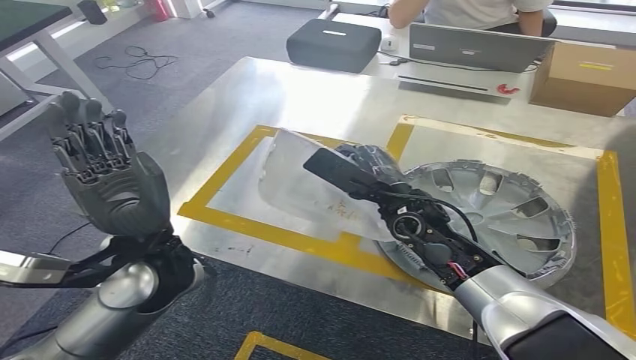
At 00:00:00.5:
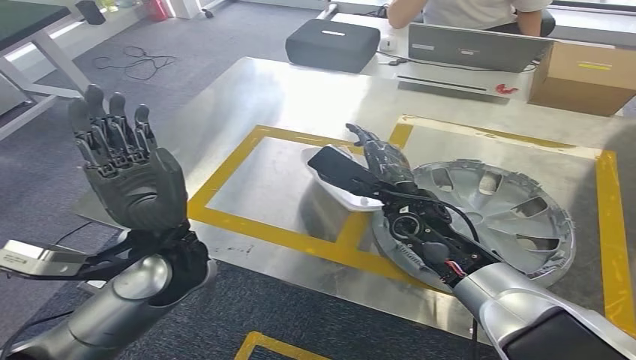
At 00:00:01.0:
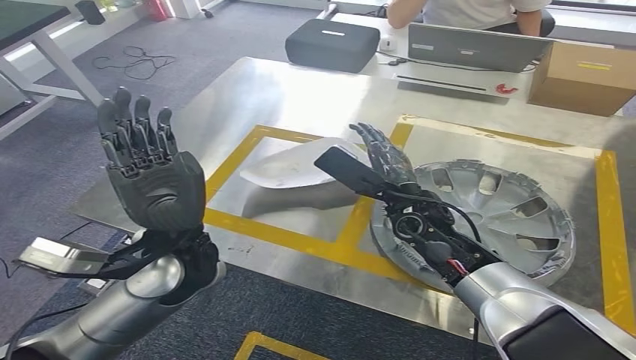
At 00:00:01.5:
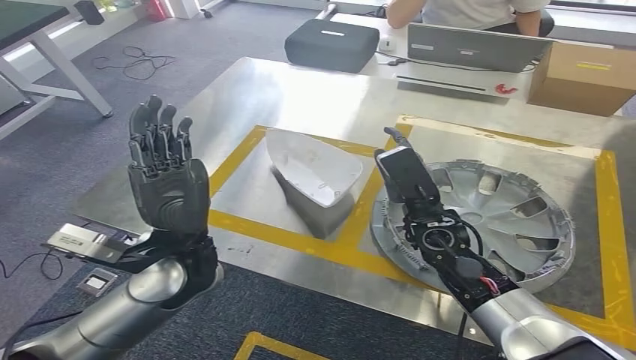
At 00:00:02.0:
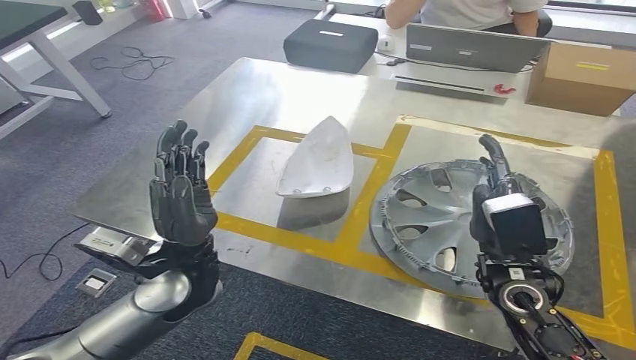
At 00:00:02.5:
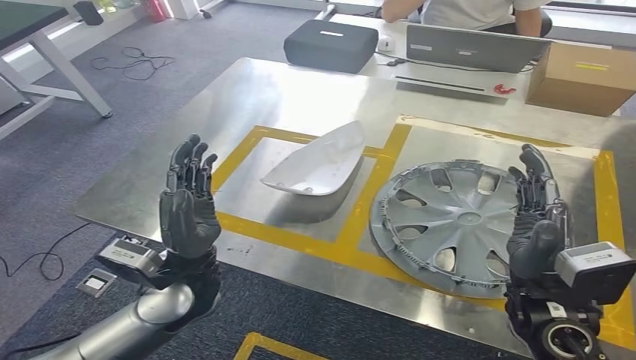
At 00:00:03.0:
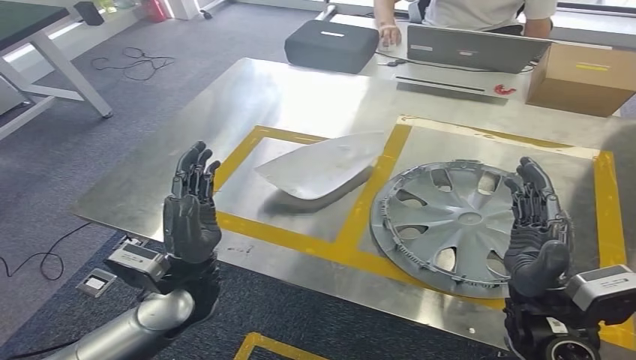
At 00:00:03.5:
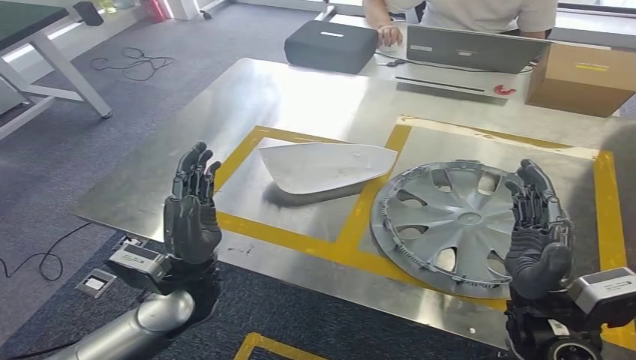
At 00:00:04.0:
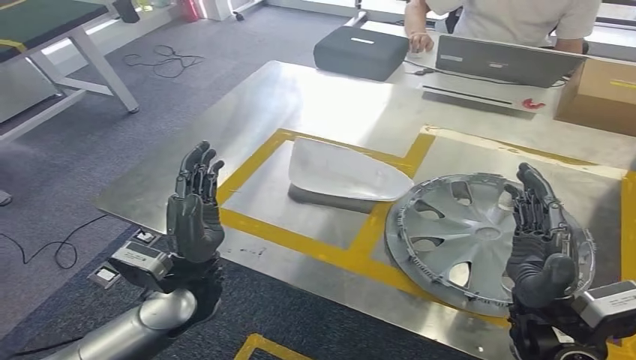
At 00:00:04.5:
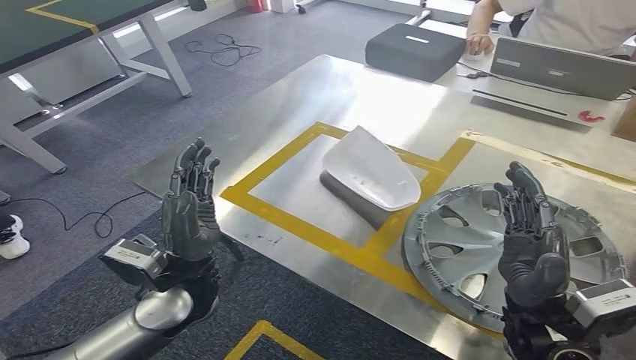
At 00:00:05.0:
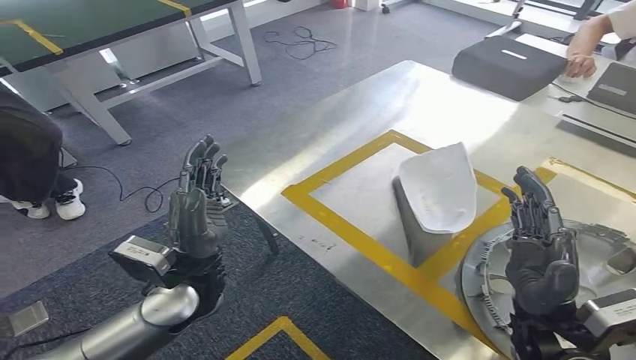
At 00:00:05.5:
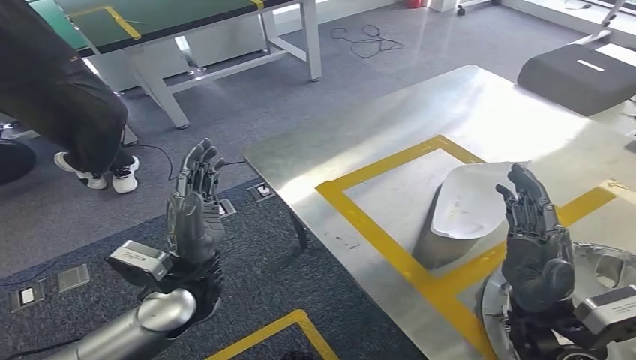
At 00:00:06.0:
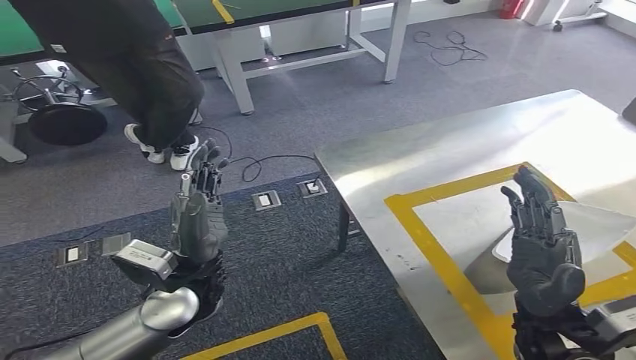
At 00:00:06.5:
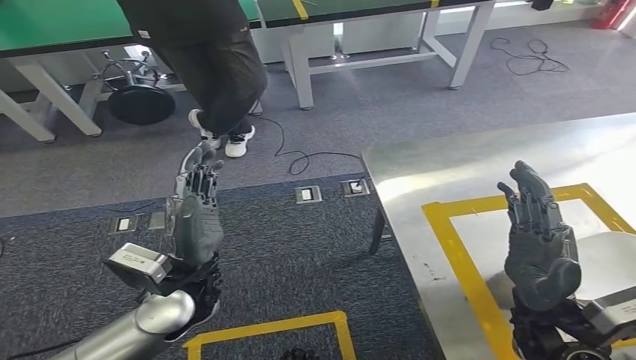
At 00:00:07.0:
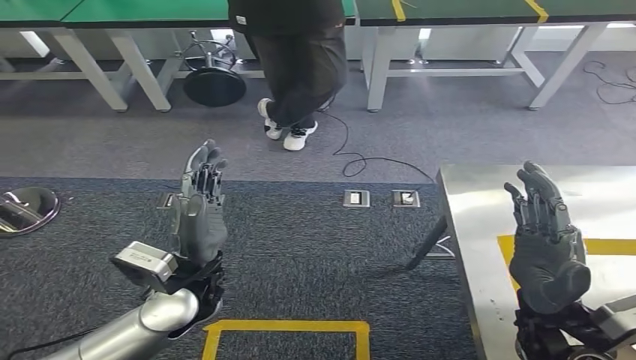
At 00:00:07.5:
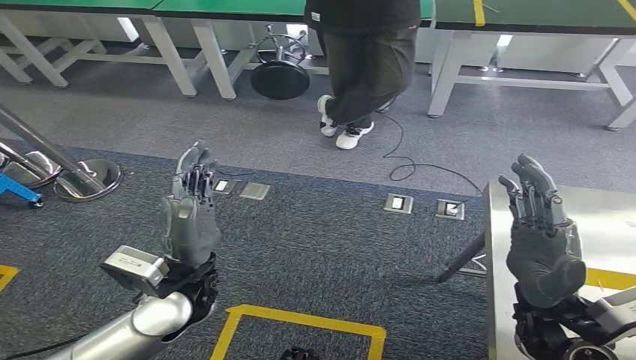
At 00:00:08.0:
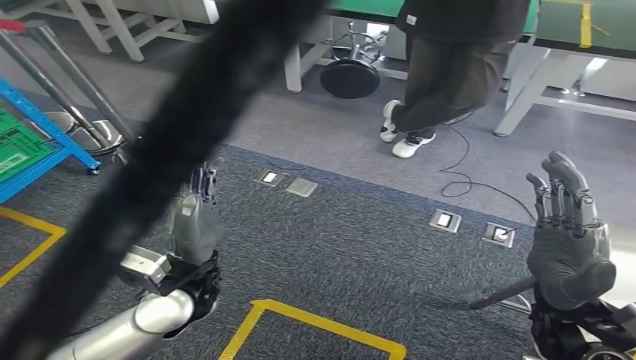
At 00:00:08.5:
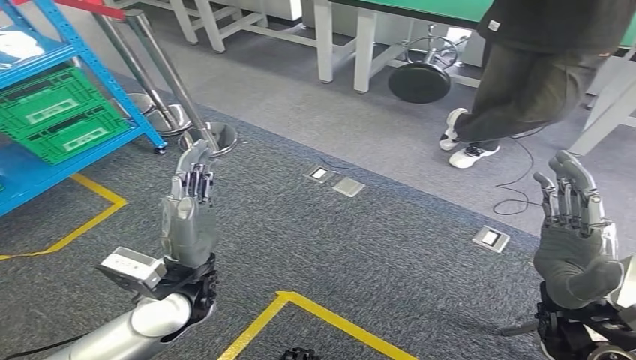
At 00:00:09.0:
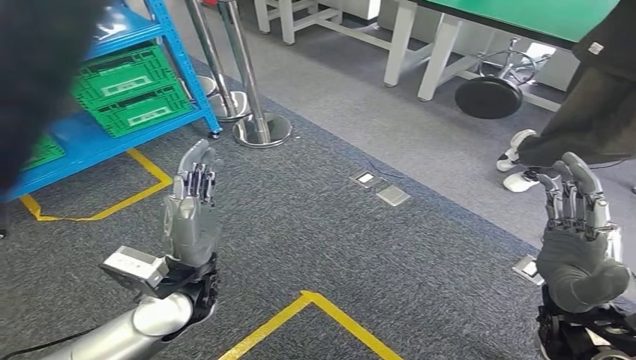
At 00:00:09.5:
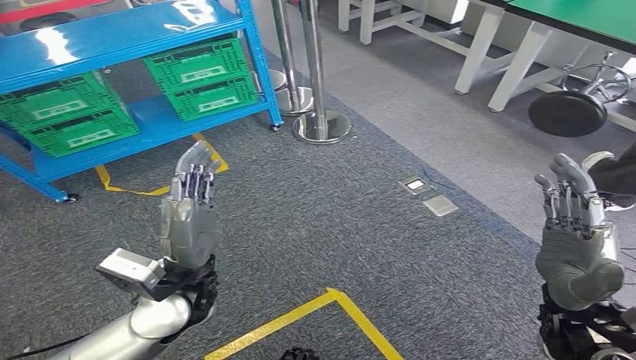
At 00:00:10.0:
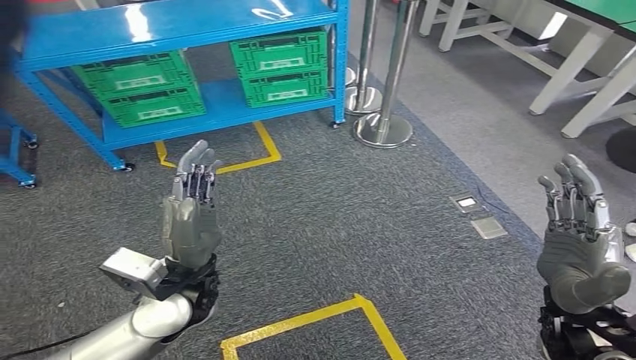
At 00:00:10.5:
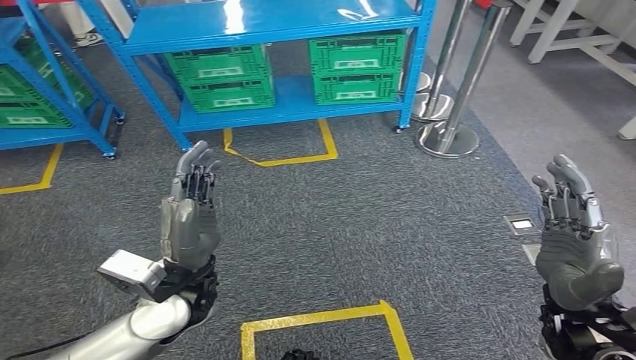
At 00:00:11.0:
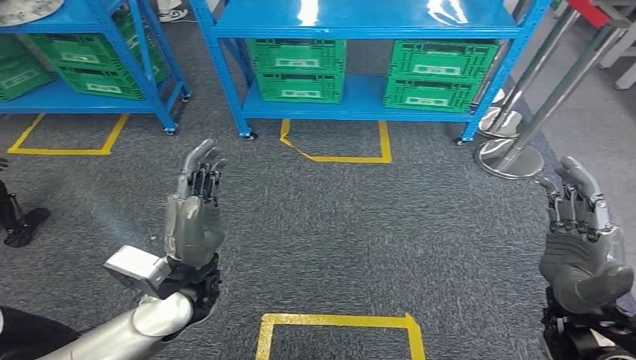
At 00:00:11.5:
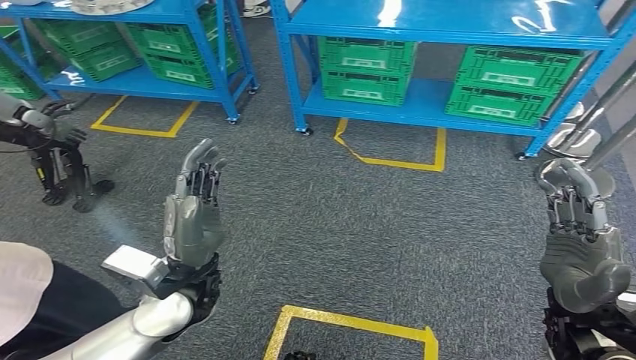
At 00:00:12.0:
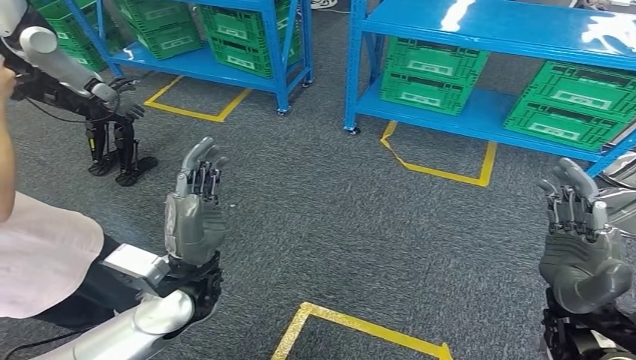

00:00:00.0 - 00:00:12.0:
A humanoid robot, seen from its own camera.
Step, 00:00:00.0 - 00:00:02.0: Insert the small component into the corresponding slot on the workbench.

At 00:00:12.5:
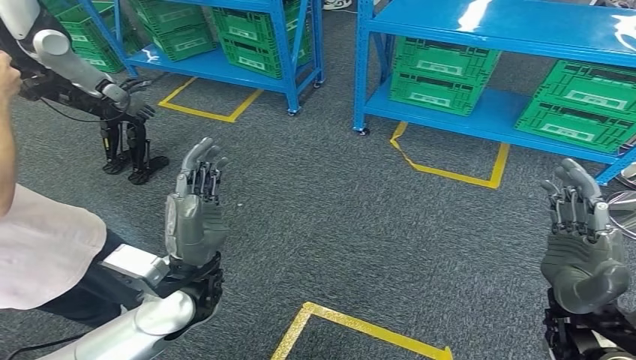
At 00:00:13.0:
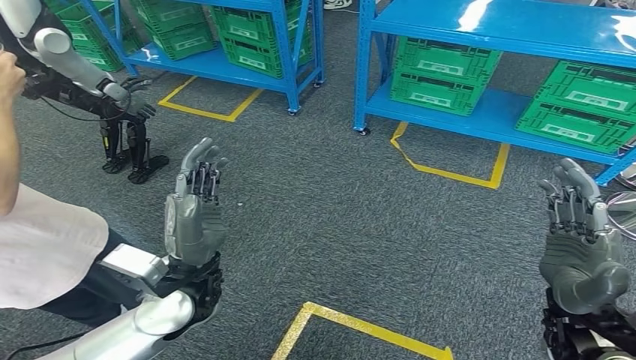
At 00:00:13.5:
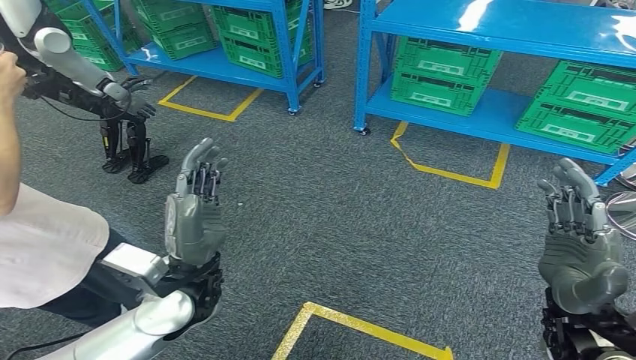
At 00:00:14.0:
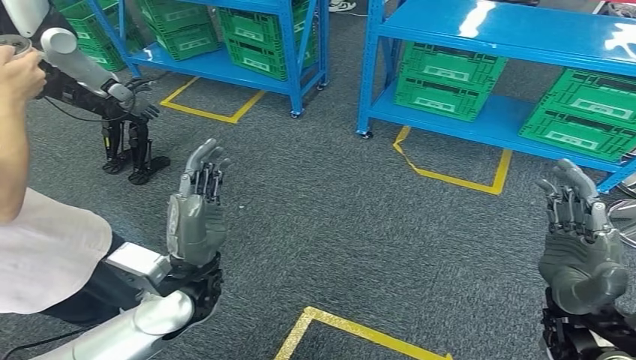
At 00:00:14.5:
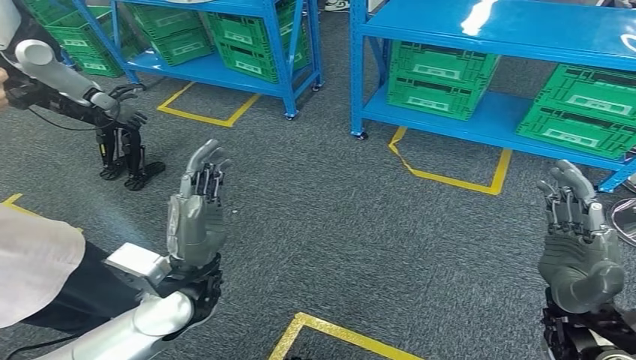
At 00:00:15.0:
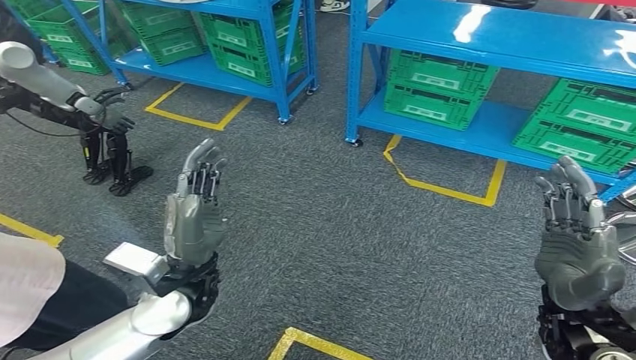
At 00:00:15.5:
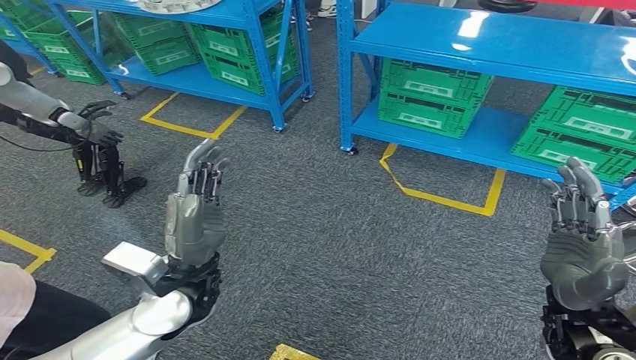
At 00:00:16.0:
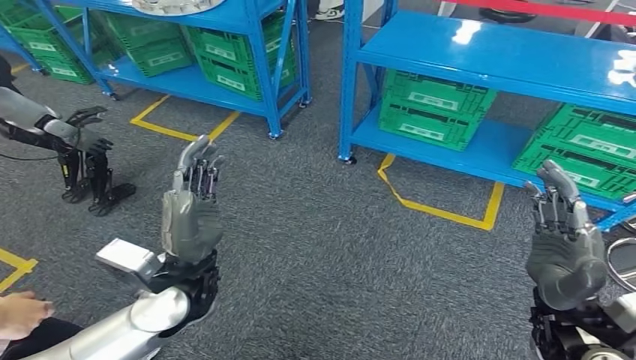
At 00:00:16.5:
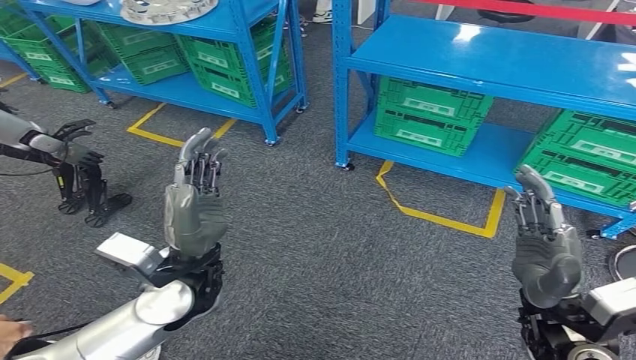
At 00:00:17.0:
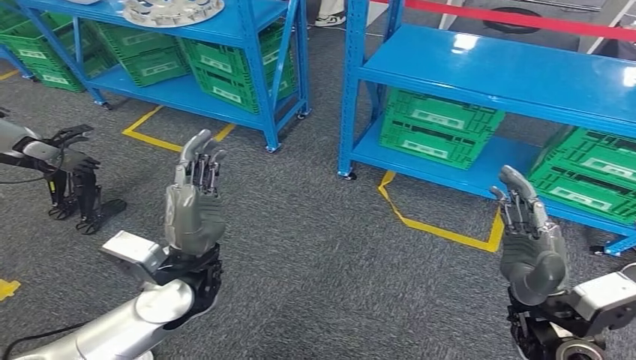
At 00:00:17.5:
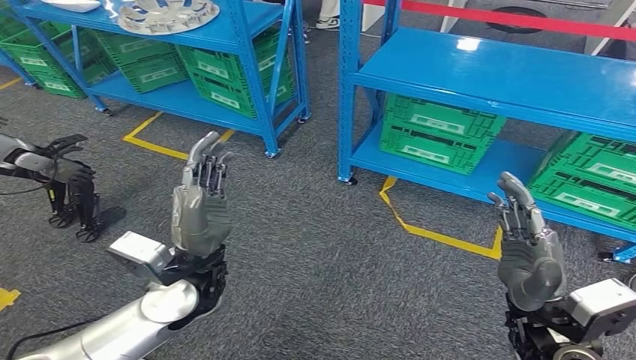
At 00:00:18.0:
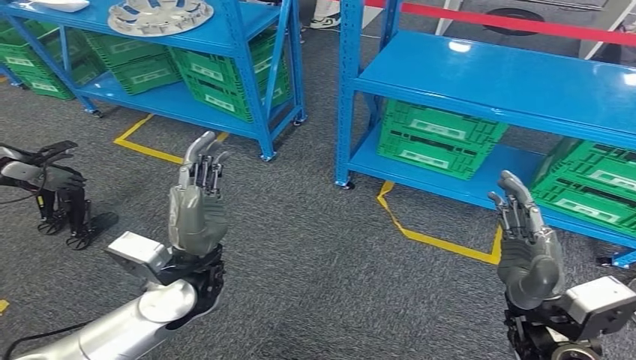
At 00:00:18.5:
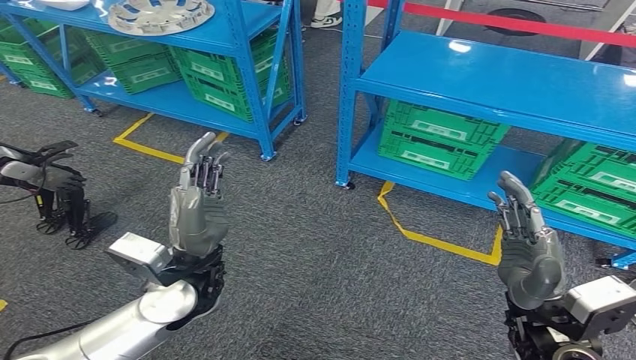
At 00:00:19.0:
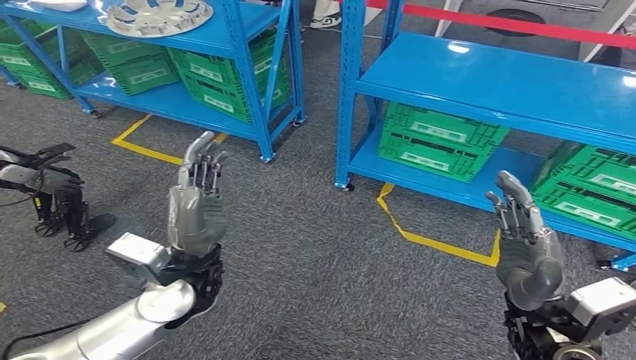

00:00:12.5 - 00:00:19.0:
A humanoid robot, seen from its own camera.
Step, 00:00:12.5 - 00:00:19.0: Return to the initial position at the workbench.
00:00:12.5 - 00:00:14.5: Neither hand changes place.
